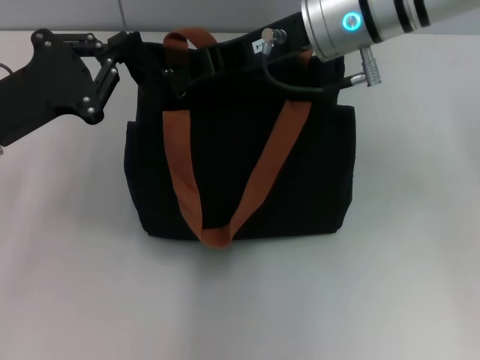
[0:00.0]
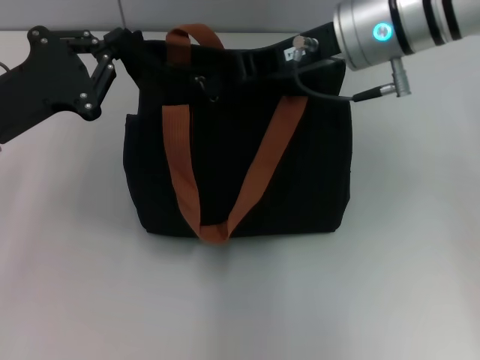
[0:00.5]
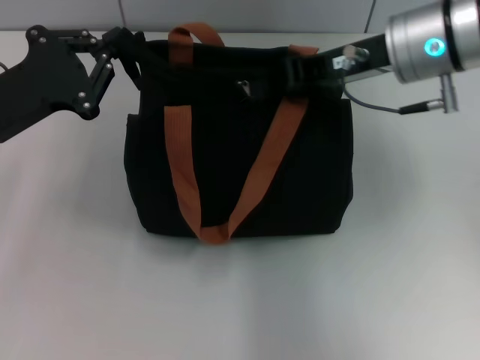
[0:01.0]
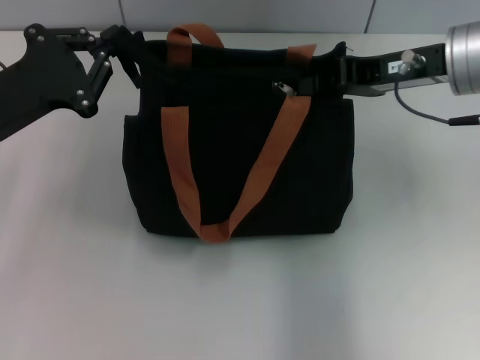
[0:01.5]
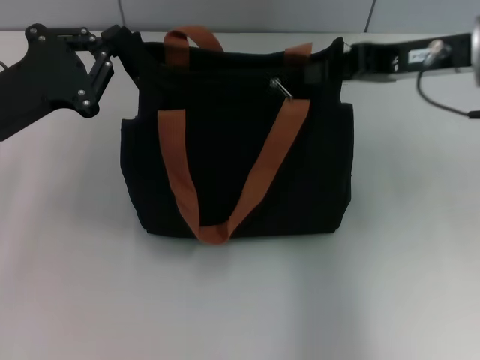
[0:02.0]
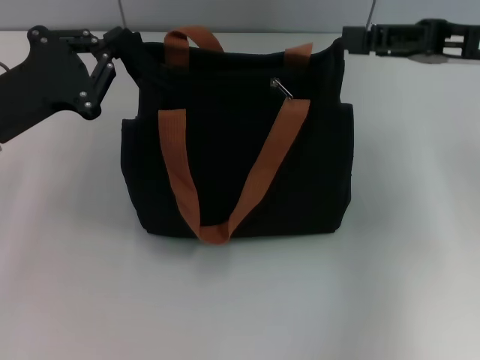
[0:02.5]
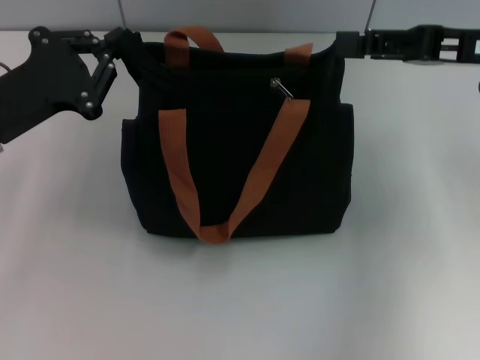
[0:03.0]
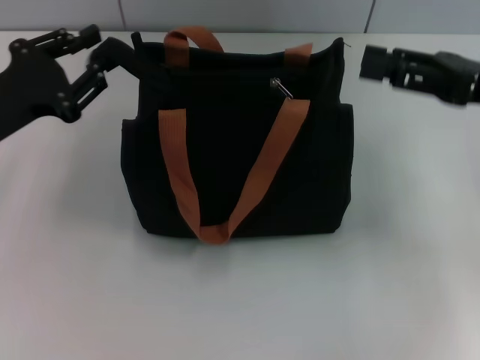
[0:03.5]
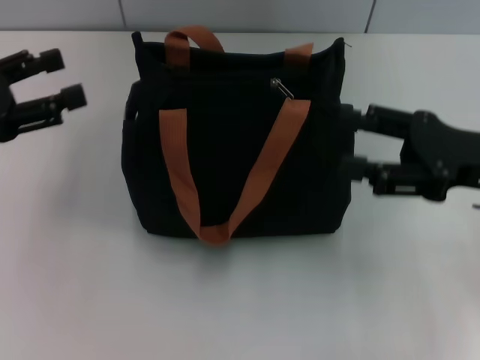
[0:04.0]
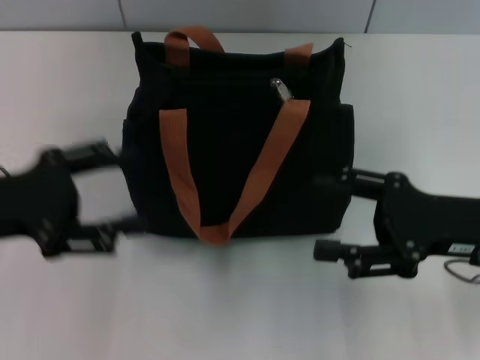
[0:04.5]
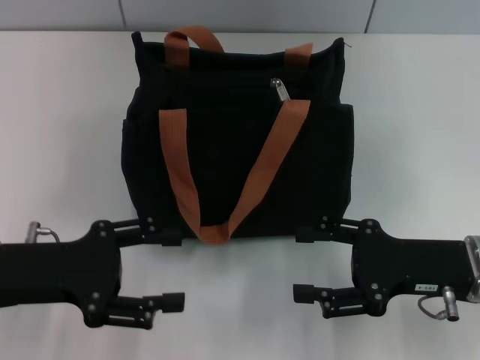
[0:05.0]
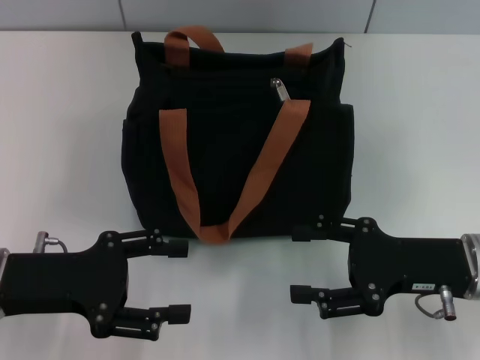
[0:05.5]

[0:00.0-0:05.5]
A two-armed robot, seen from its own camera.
Step, 0:00.0 to 0:02.5: Pull up the zipper with your right hand.
Step, 0:03.0 to 0:03.5: Grab the zipper with your left hand.
0:00.0 to 0:02.0: The right gripper shifts roughly 15 cm to the right.
0:02.0 to 0:03.5: The right gripper goes approximately 5 cm to the right, and opens.
0:03.5 to 0:05.5: The right gripper is displaced downward and backward by approximately 15 cm. Meanwhile the left gripper moves backward, approximately 10 cm, and opens up.

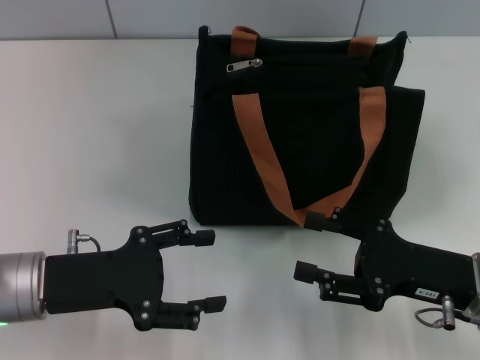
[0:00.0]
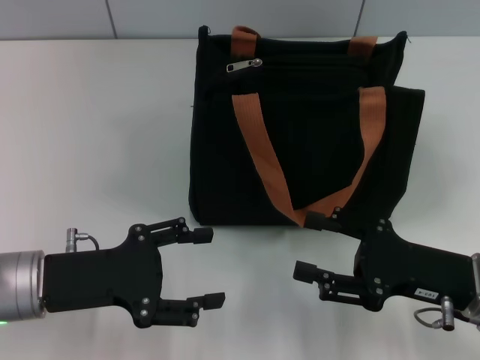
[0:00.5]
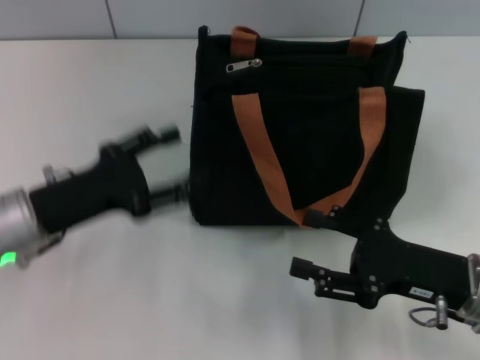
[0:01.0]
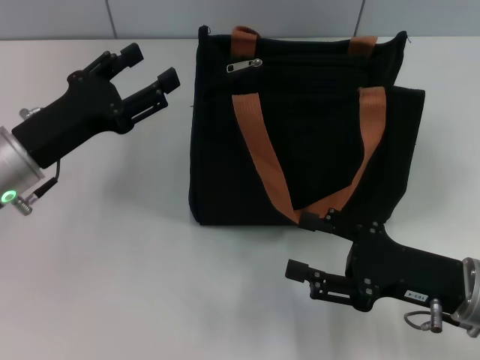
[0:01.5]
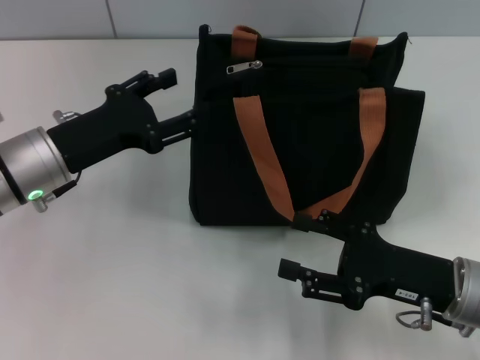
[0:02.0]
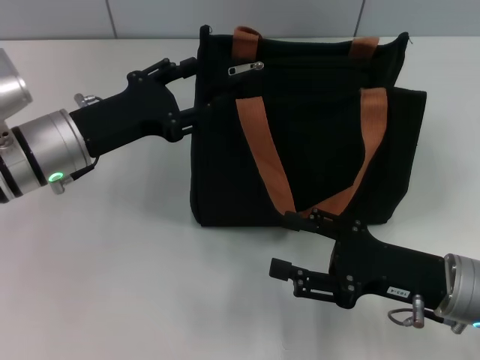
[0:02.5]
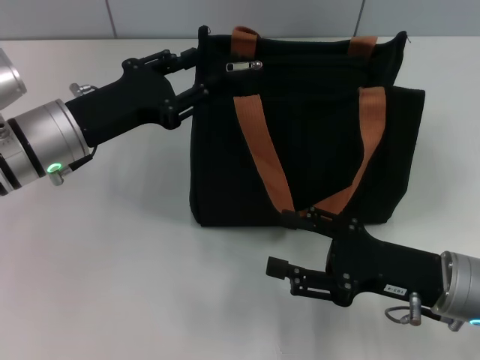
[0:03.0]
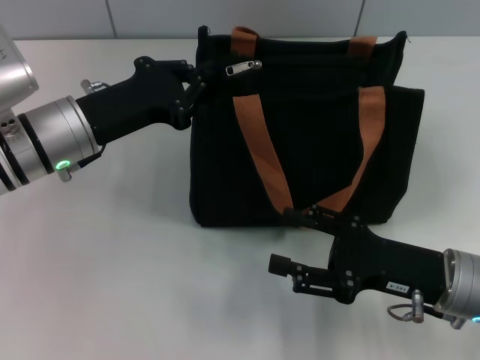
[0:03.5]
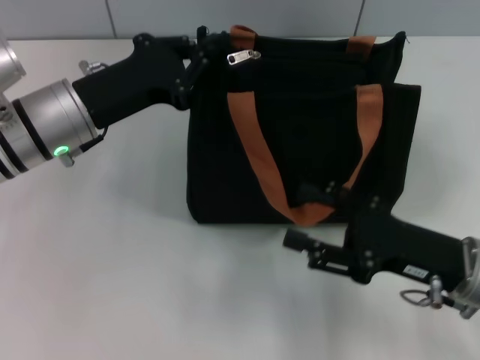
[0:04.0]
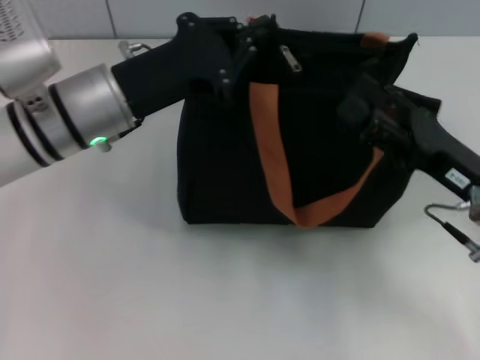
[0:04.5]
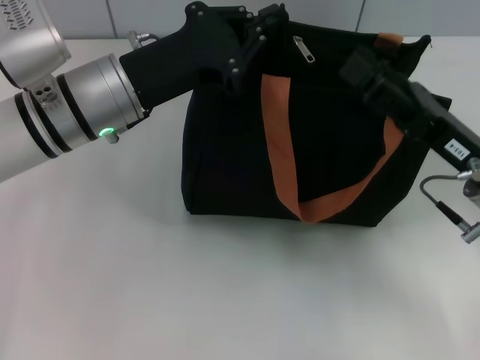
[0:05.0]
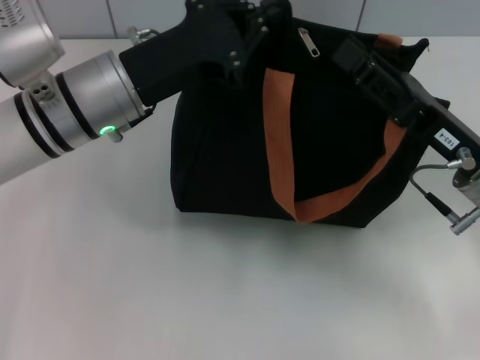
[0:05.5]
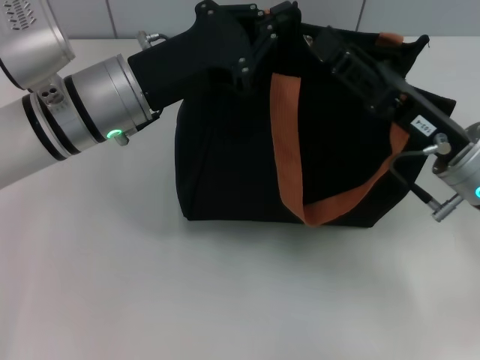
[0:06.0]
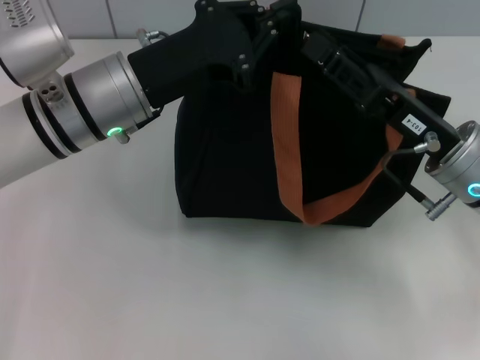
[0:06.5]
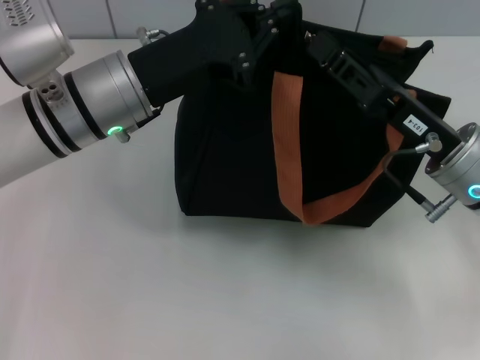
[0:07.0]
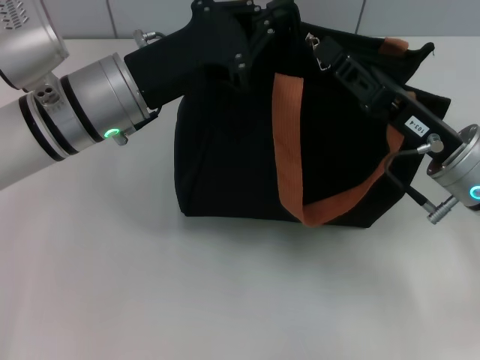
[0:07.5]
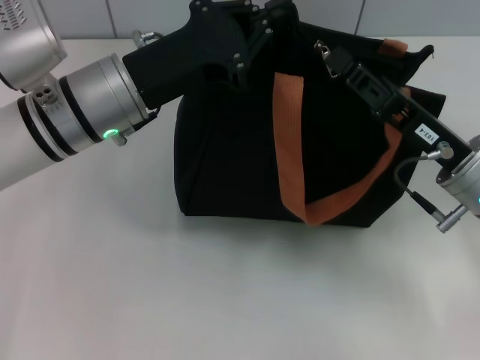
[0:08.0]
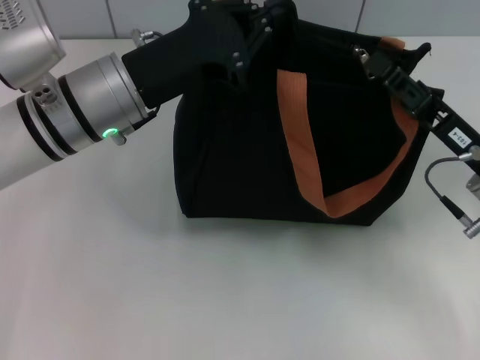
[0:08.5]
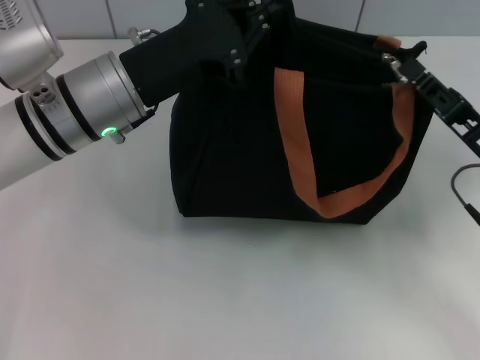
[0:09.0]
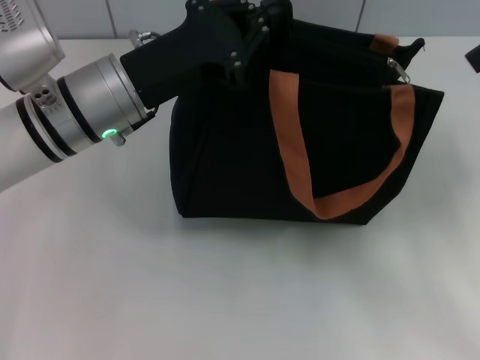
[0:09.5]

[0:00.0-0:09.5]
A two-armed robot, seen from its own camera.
Step, 0:00.0 to 0:09.0: Pull up the zipper with your right hand.
0:00.0 to 0:02.0: The left gripper is displaced forward by roughly 10 cm.
0:02.0 to 0:04.0: The left gripper closes its fingers.
0:04.0 to 0:05.5: The right gripper travels forward by some 5 cm. Meanwhile the left gripper changes place by some 5 cm.
0:05.5 to 0:07.5: The right gripper closes its fingers.
0:07.5 to 0:09.5: The right gripper travels to the right and backward by about 10 cm.

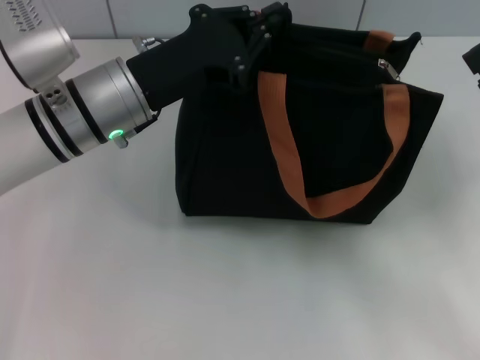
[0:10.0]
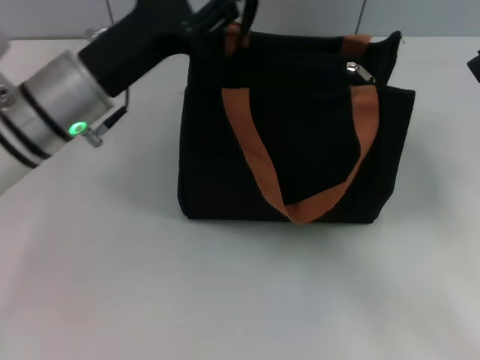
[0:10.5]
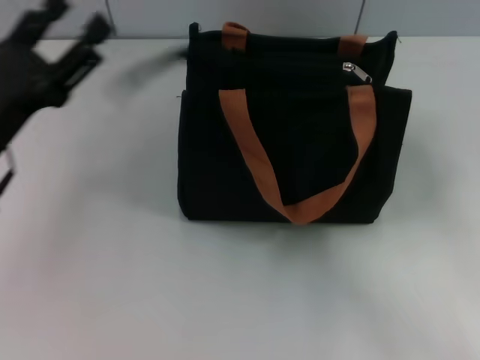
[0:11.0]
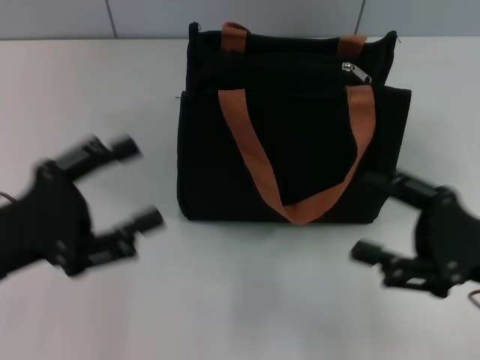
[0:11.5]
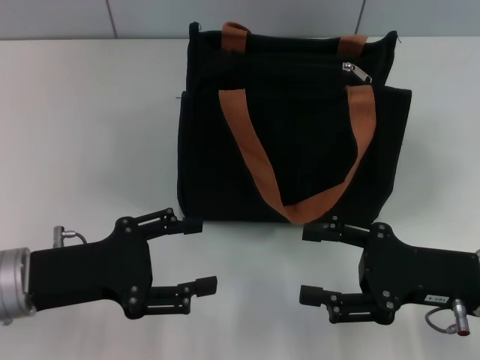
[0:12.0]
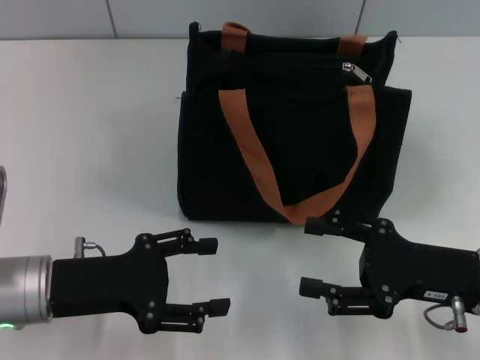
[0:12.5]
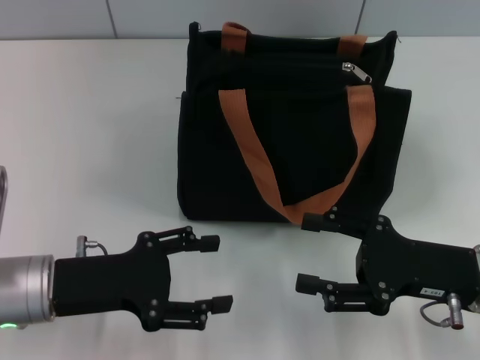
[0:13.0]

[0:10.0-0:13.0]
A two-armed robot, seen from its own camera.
Step, 0:10.0 to 0:11.0: Grab the zipper with your left hand.
0:10.0 to 0:11.5: The right gripper opens its fingers. The left gripper goes some 20 cm backward and to the left, and opens up.
0:11.5 to 0:13.0: The left gripper shifts by roughly 5 cm.
